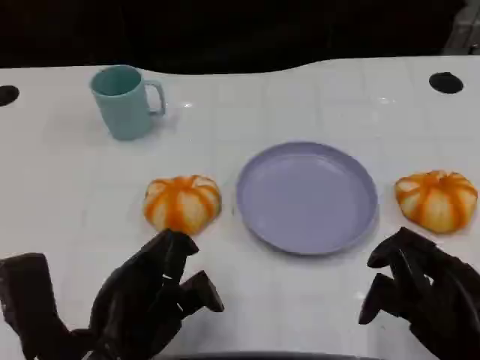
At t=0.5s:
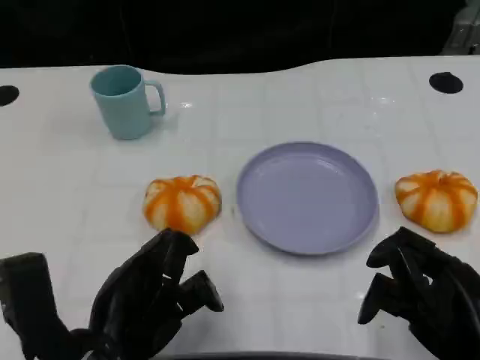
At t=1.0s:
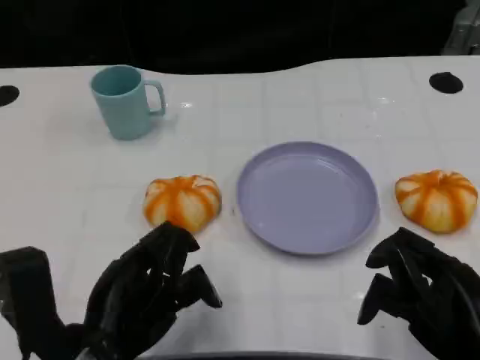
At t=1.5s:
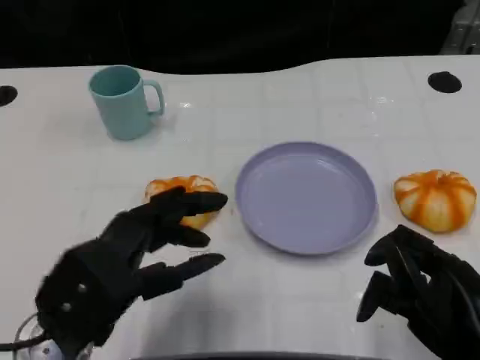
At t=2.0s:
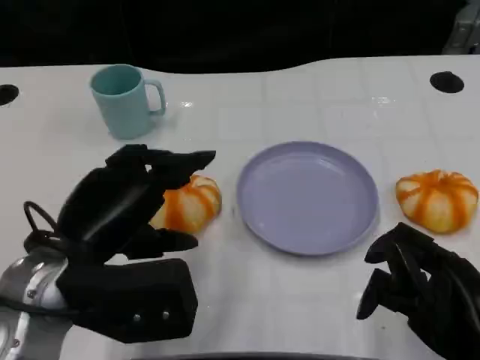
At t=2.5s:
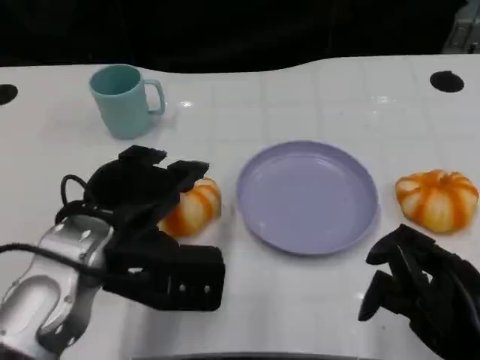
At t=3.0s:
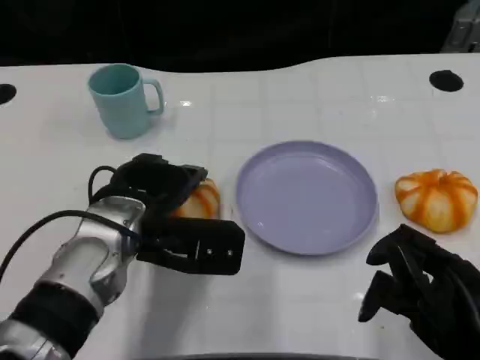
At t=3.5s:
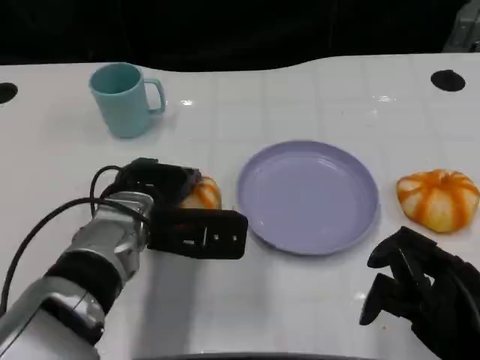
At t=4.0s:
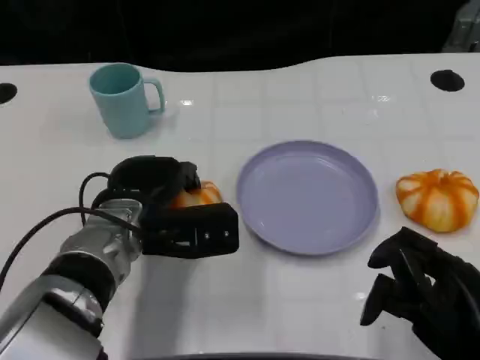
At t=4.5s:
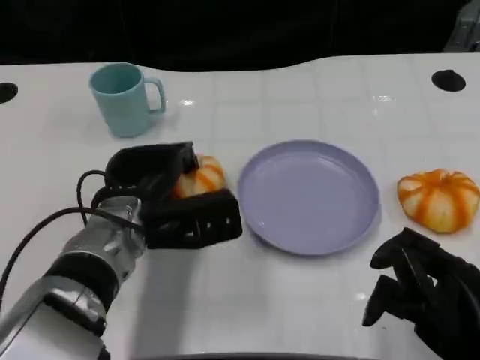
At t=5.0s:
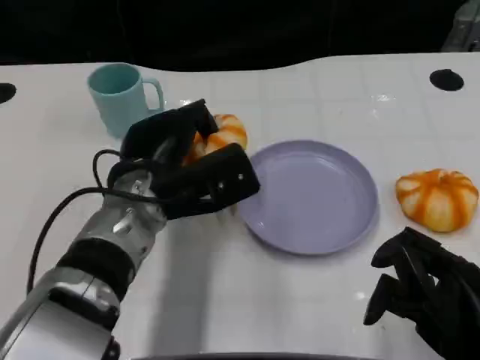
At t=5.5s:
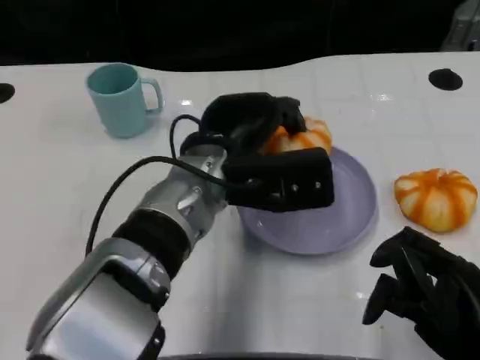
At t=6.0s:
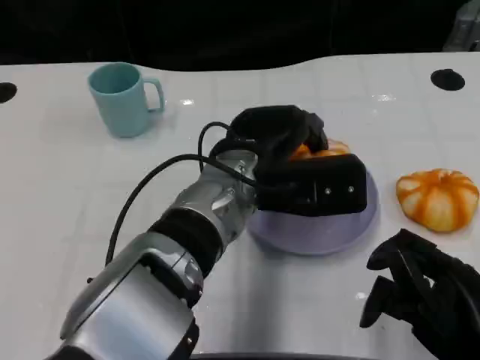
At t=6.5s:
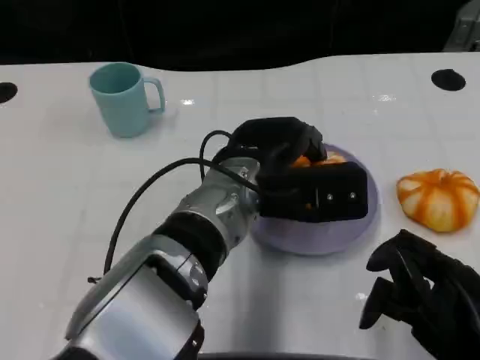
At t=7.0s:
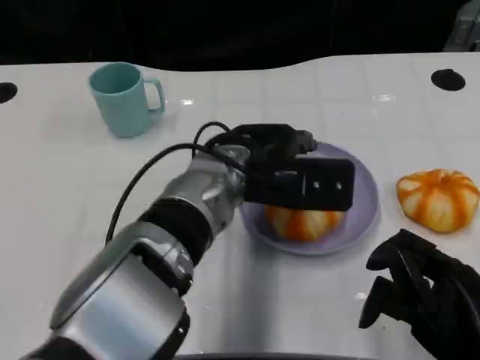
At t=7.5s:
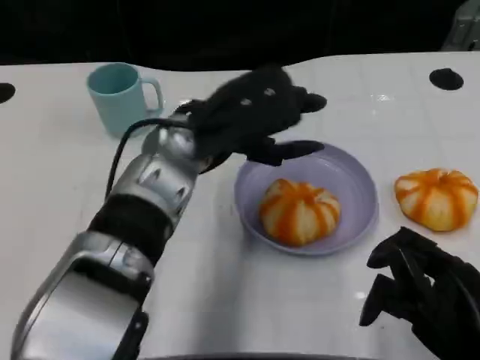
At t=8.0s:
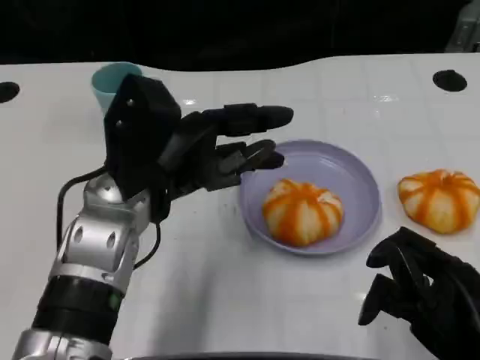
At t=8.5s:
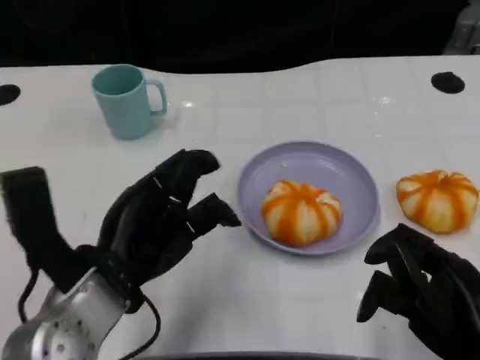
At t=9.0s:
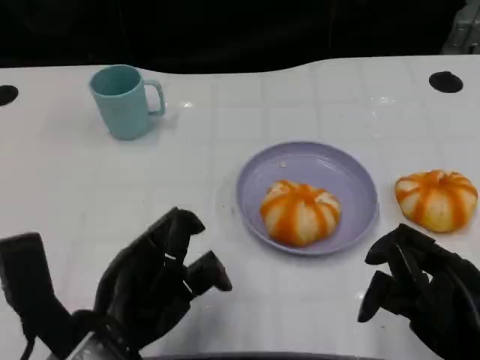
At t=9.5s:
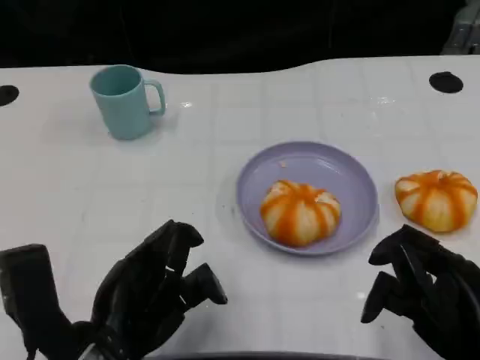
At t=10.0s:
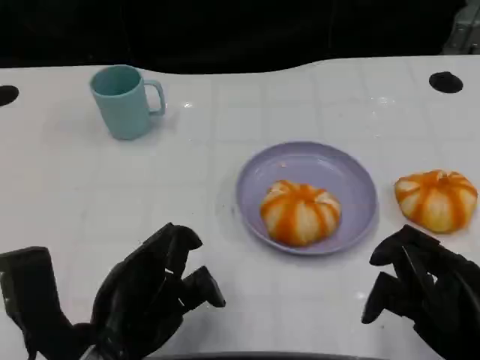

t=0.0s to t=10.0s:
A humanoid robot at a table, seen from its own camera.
Task of the whole recording: Grasp the bread from the table and place it into the plate.
t=0.0s to t=2.0s: The left hand heads upward and forward, covering about 10 cm.
t=2.0s to t=4.0s: The left hand goes approximately 10 cm forward and downward.
t=4.0s to t=6.0s: The left hand shifts roughly 15 cm to the right and upward.
t=6.0s to t=8.0s: The left hand heads to the left, covering about 10 cm.
t=8.0s to t=10.0s: The left hand heads backward and downward, covering roughly 15 cm.

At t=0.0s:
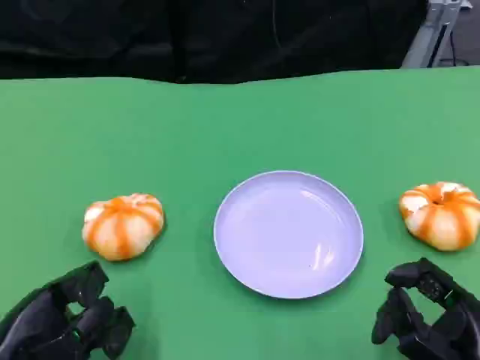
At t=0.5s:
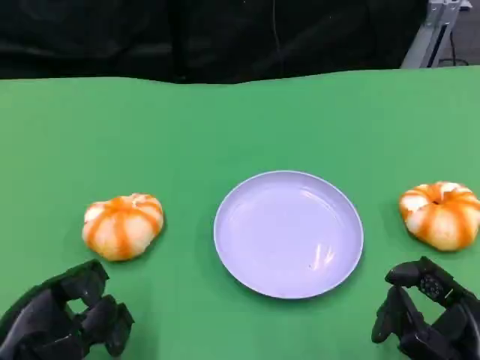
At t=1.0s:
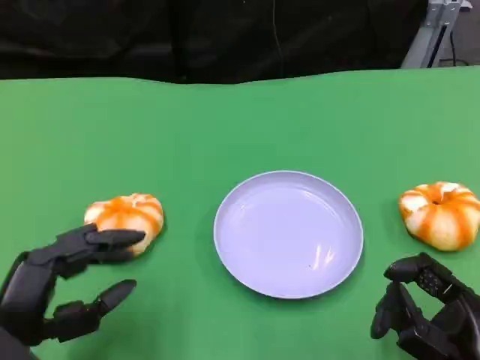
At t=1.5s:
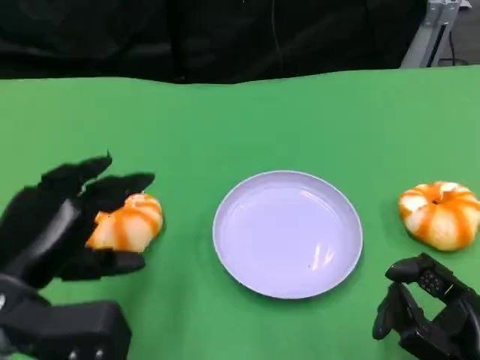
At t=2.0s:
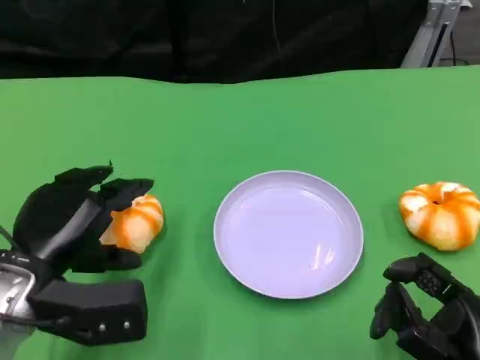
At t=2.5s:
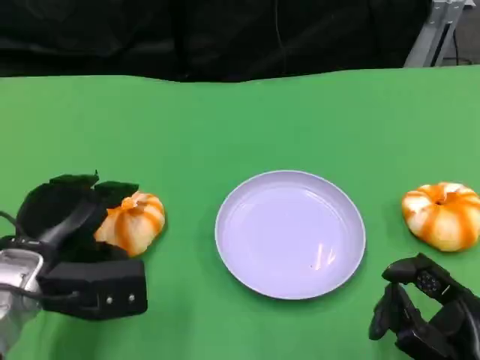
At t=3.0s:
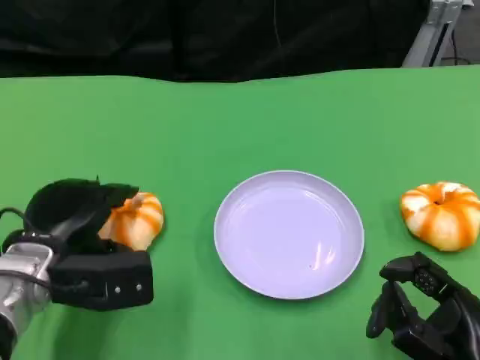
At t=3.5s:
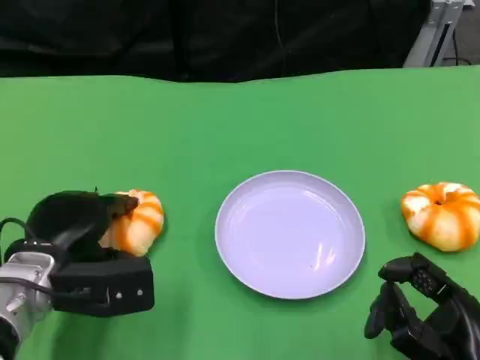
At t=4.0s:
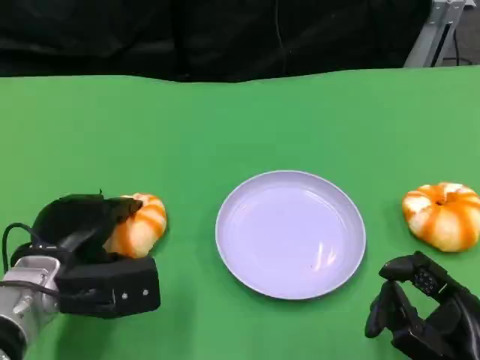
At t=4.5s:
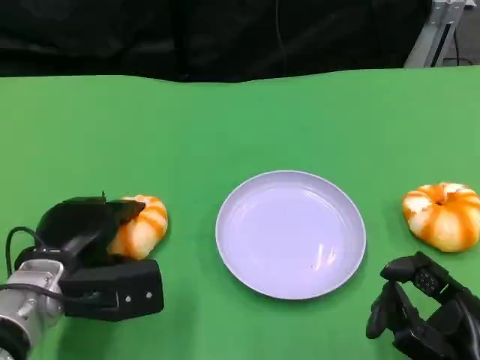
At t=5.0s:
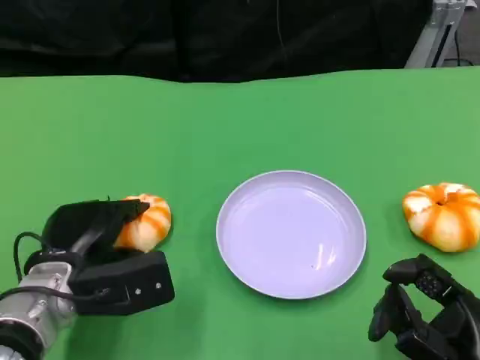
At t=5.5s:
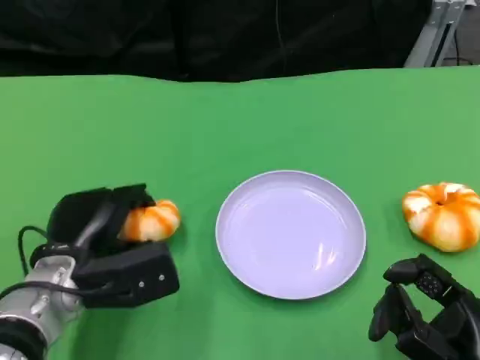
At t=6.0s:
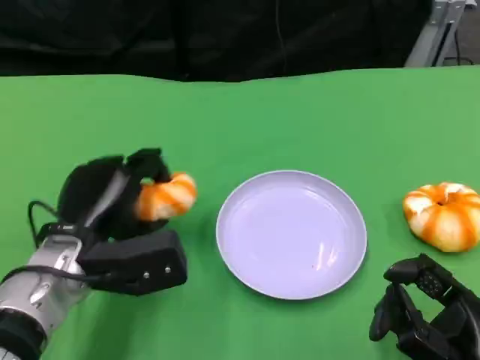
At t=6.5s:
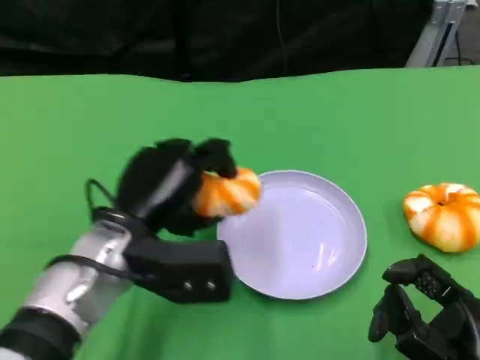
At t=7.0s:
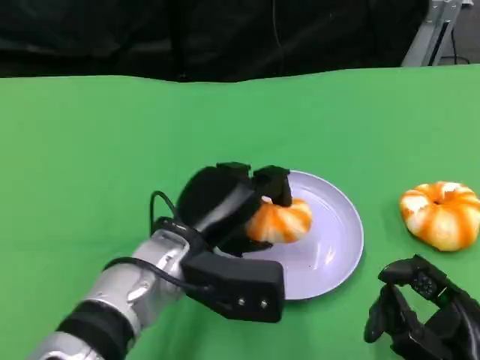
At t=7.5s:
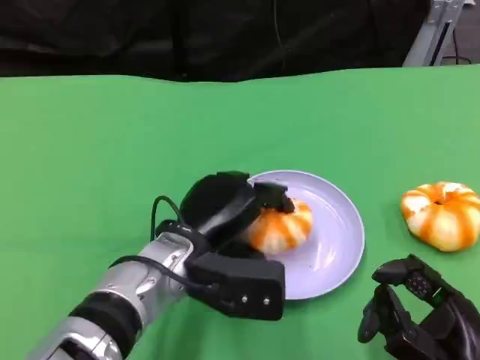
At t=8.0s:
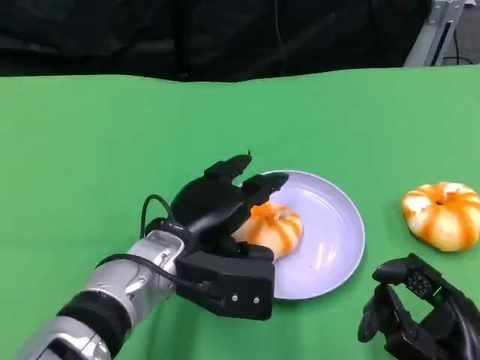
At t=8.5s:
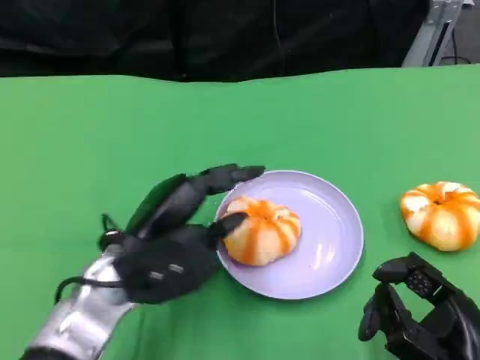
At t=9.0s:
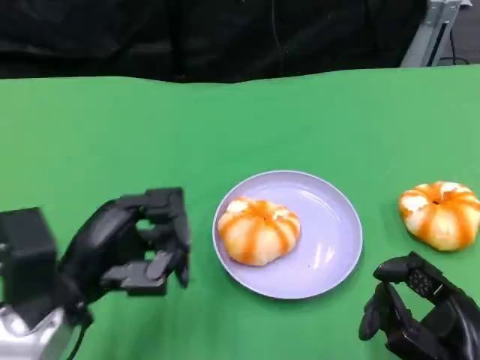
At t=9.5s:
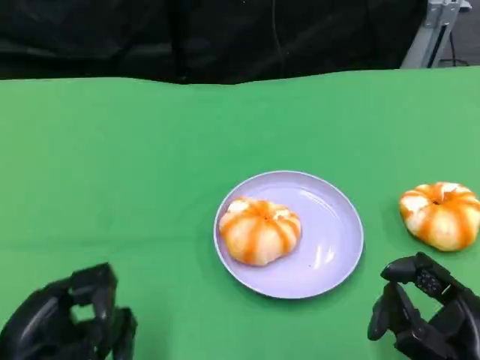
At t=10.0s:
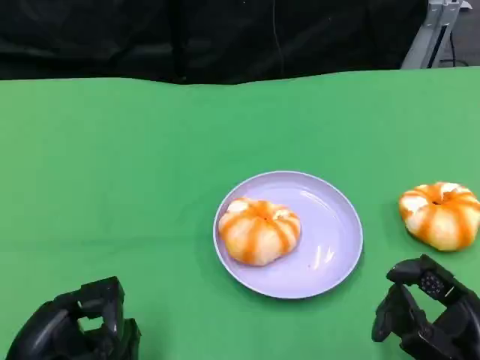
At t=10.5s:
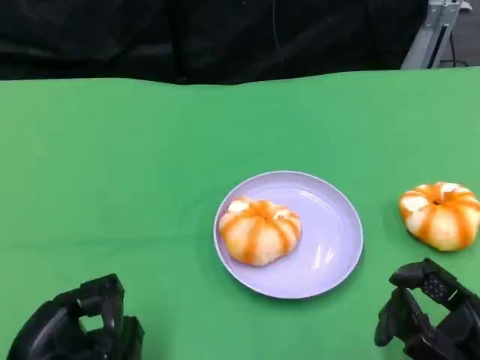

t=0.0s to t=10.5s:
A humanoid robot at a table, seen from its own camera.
Task of the whole recording: Grasp the bread from the table and place it into the plate.
t=0.0s to t=2.0s: The left hand travels forward by roughly 5 cm.
t=2.0s to t=4.0s: The left hand shifts by about 5 cm.
t=4.0s to t=6.5s: The left hand travels to the right and upward by some 10 cm.
t=8.5s to t=10.5s: The left hand travels backward and to the left by some 15 cm.

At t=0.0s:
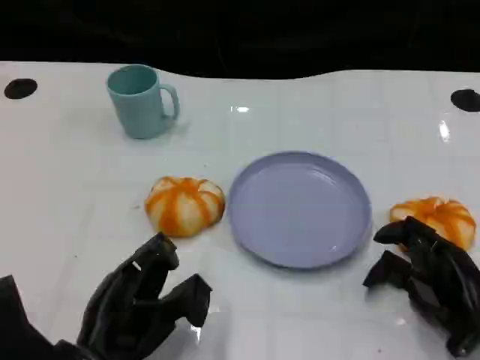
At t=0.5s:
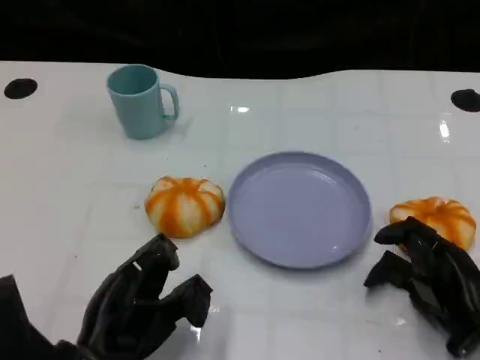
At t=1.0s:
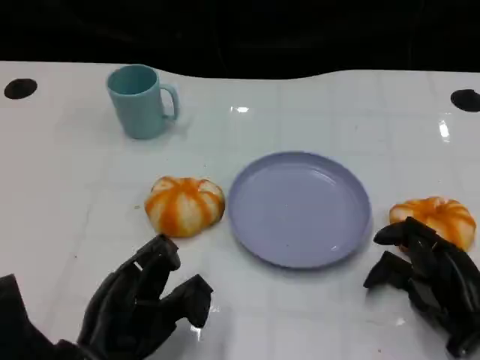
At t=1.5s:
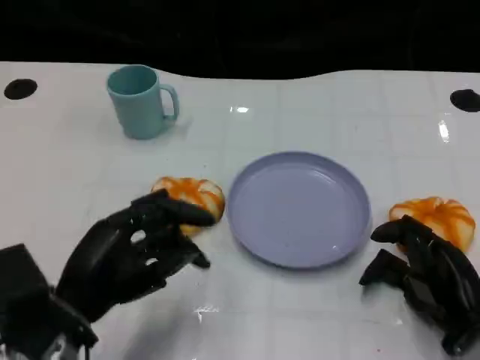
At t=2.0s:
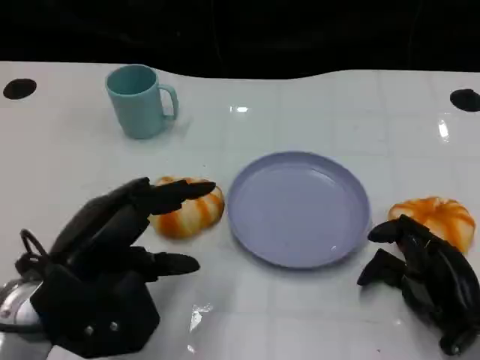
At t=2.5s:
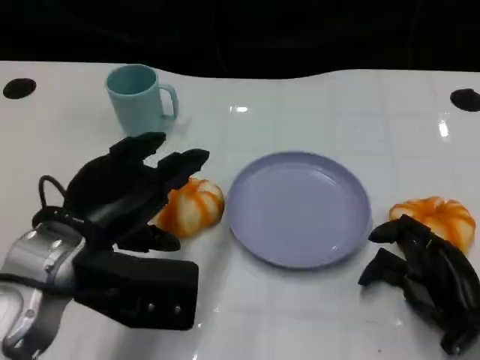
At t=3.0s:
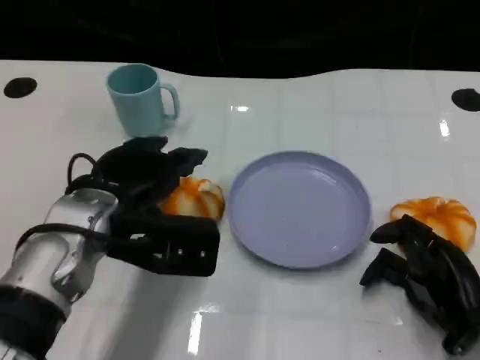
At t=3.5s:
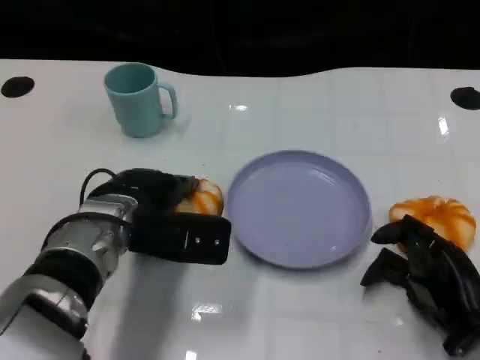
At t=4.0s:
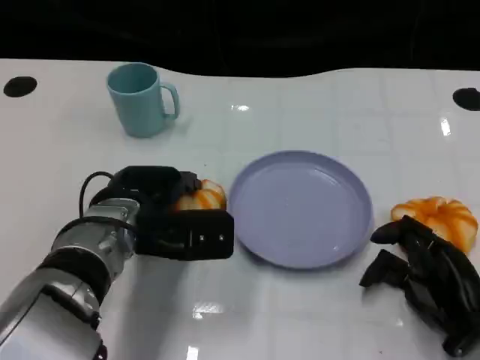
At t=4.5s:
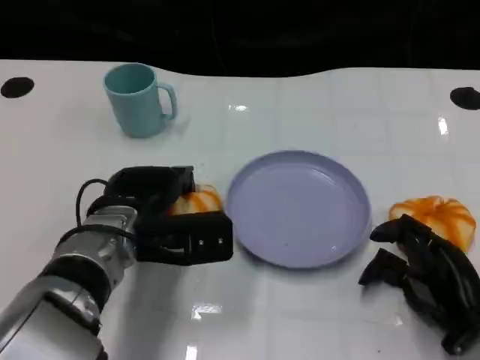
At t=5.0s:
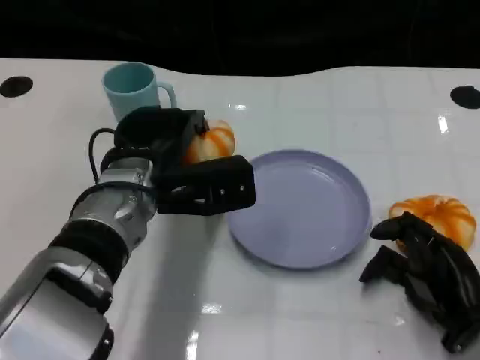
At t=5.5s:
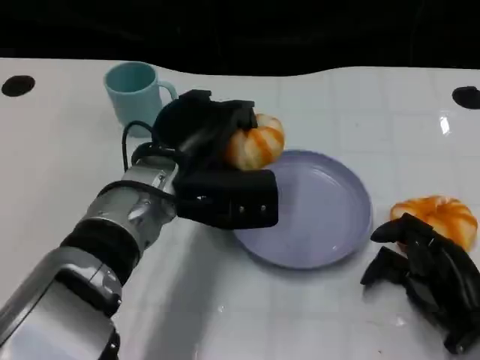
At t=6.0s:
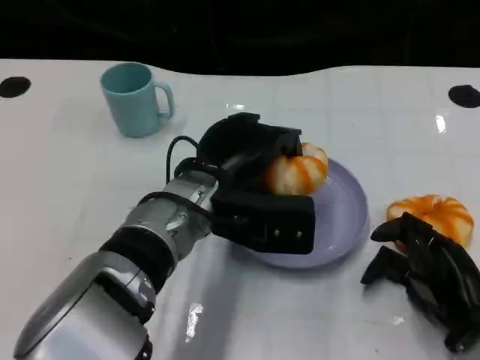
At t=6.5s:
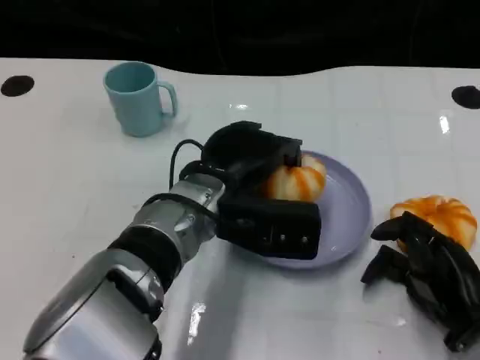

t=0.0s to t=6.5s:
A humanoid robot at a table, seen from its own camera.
Task of the whole recording: Grasp the bread from the table and place it into the plate.
t=0.0s to t=2.0s: The left hand shifts some 10 cm upward.
t=2.0s to t=4.5s: The left hand travels forward and to the right by about 10 cm.
t=4.5s to t=6.5s: The left hand shifts approximately 10 cm to the right.
